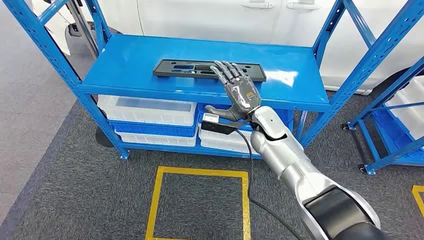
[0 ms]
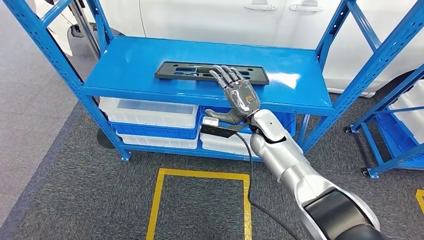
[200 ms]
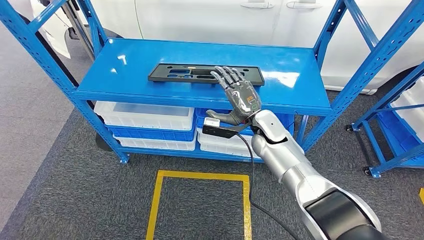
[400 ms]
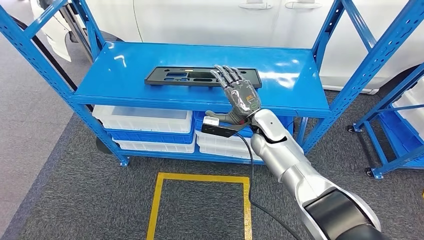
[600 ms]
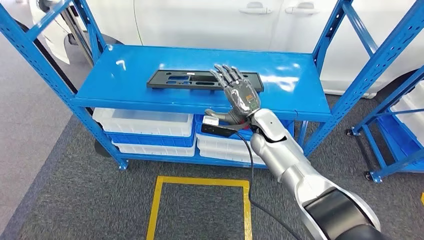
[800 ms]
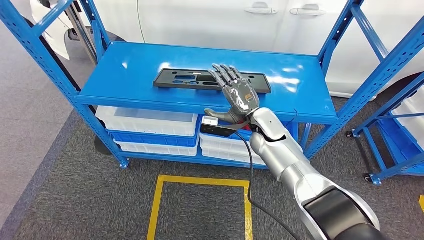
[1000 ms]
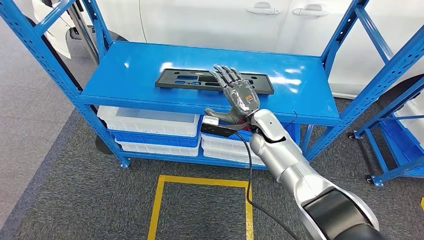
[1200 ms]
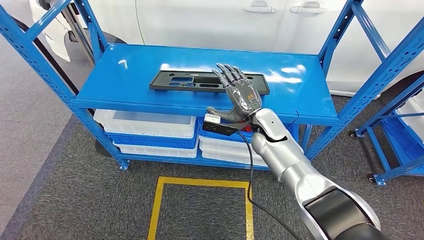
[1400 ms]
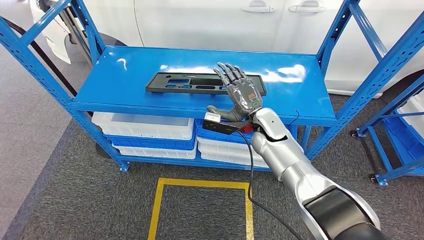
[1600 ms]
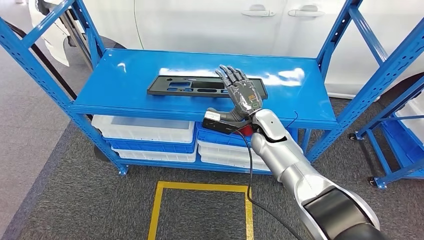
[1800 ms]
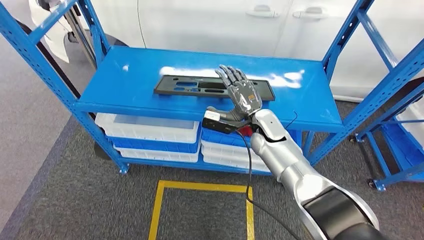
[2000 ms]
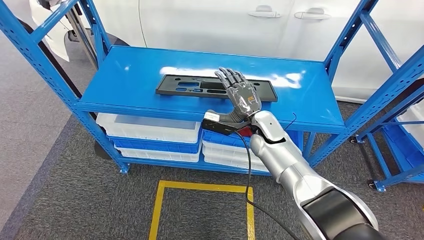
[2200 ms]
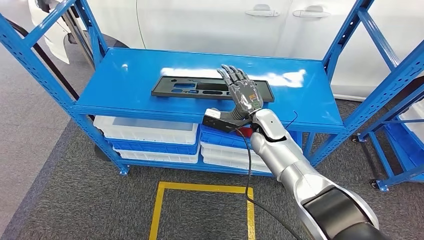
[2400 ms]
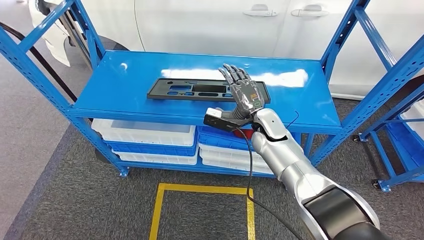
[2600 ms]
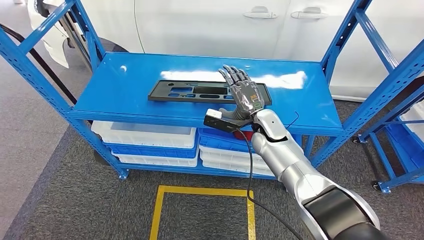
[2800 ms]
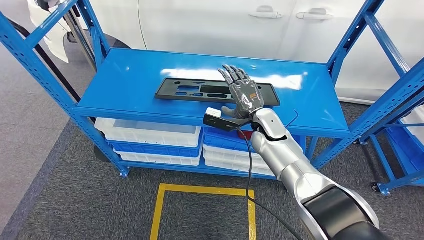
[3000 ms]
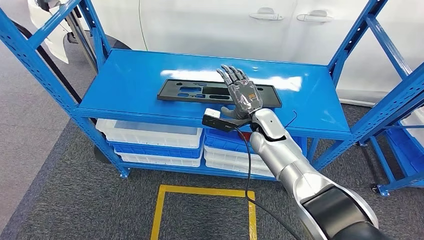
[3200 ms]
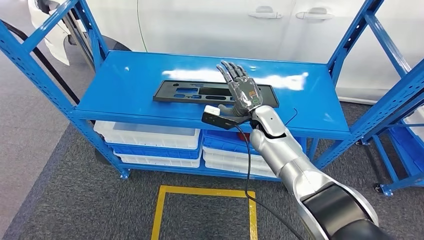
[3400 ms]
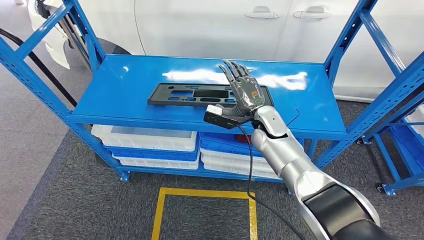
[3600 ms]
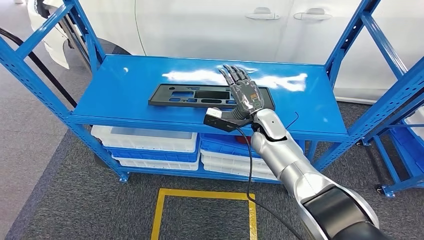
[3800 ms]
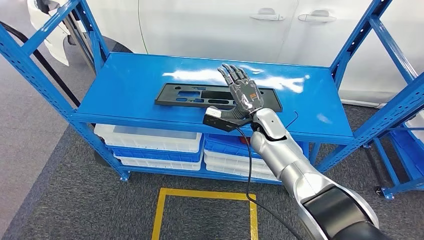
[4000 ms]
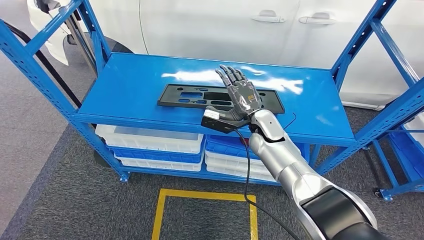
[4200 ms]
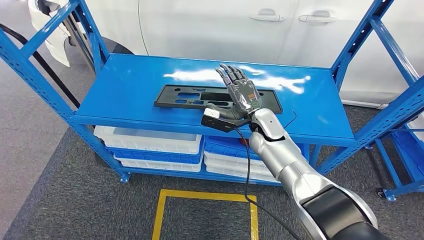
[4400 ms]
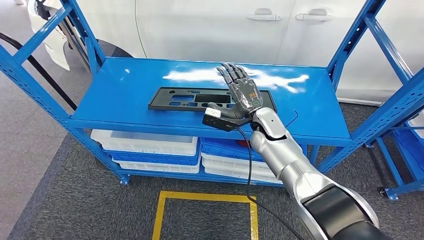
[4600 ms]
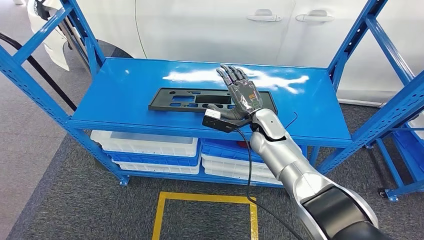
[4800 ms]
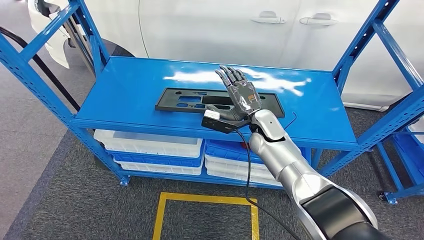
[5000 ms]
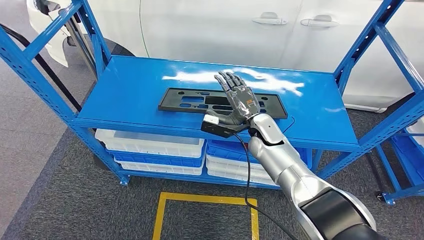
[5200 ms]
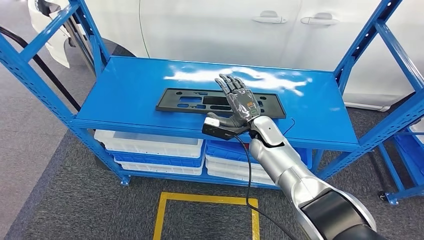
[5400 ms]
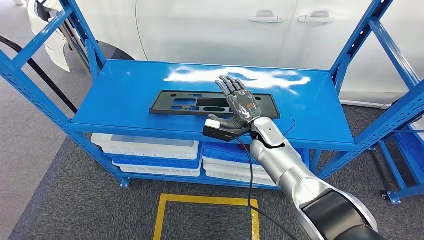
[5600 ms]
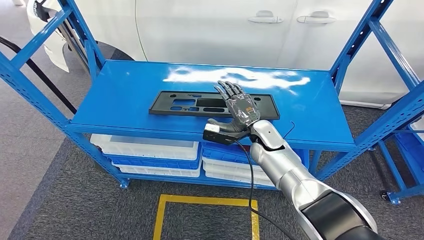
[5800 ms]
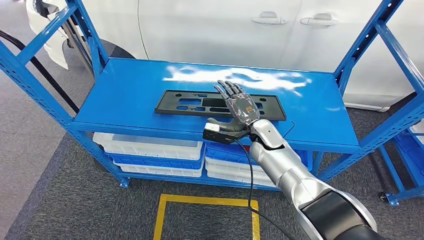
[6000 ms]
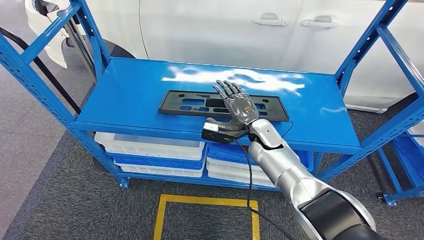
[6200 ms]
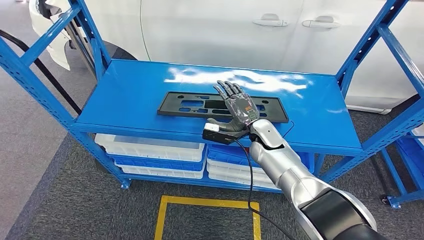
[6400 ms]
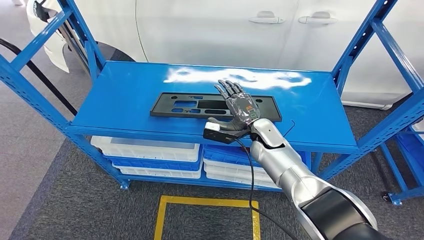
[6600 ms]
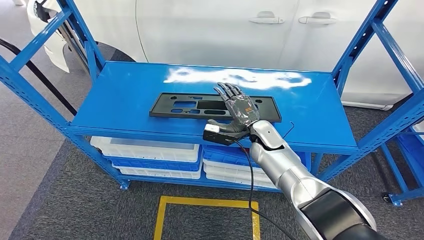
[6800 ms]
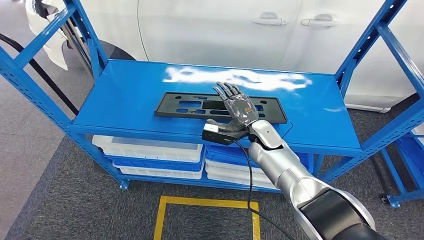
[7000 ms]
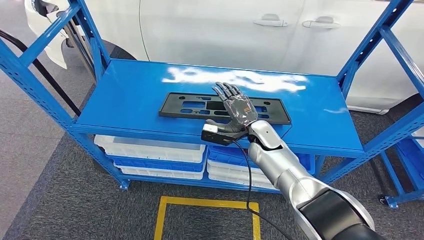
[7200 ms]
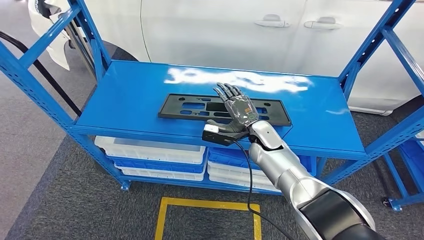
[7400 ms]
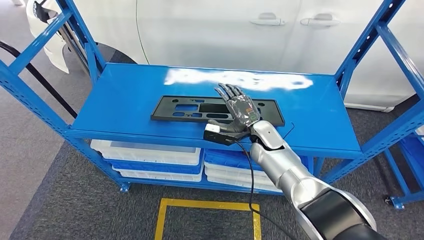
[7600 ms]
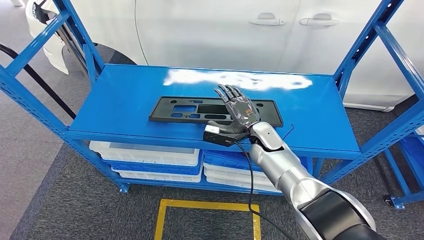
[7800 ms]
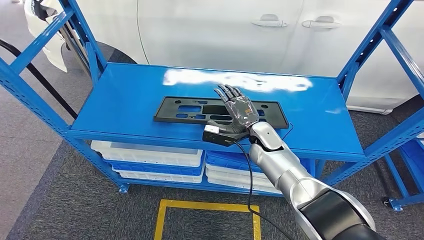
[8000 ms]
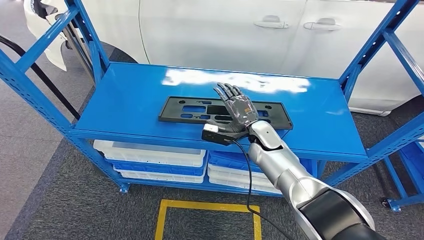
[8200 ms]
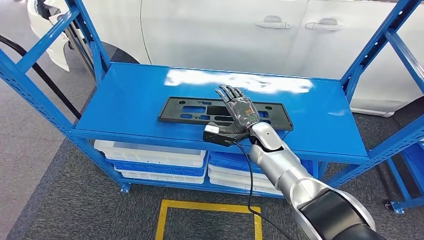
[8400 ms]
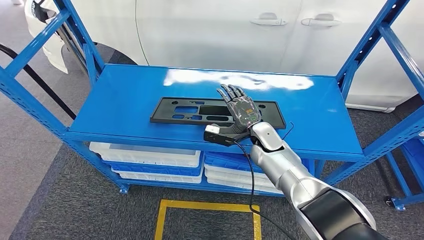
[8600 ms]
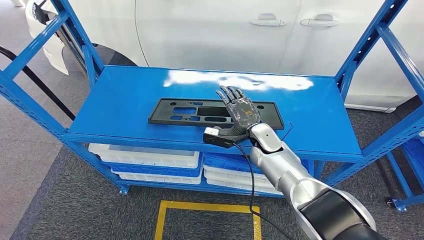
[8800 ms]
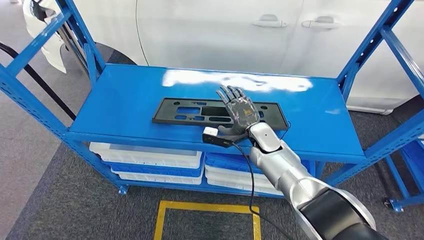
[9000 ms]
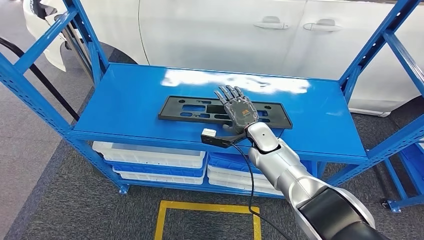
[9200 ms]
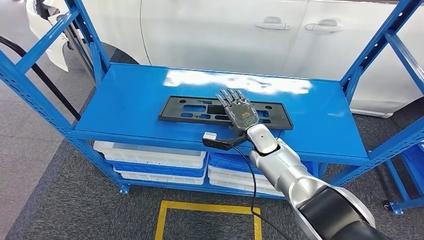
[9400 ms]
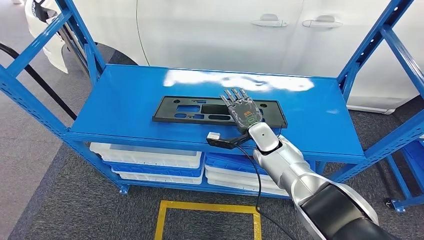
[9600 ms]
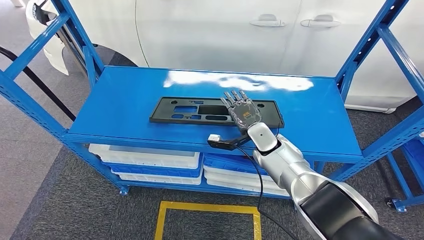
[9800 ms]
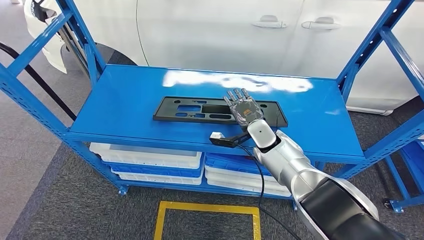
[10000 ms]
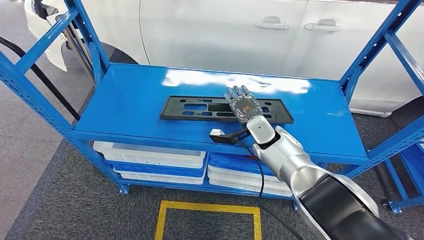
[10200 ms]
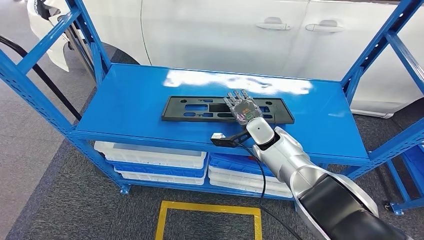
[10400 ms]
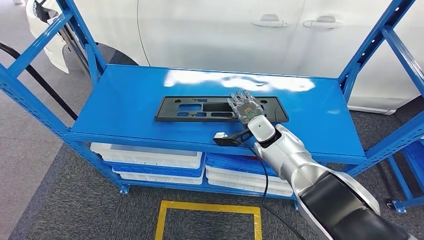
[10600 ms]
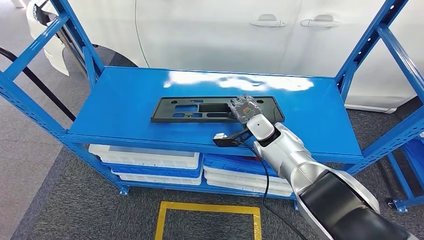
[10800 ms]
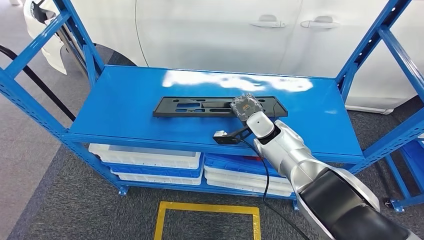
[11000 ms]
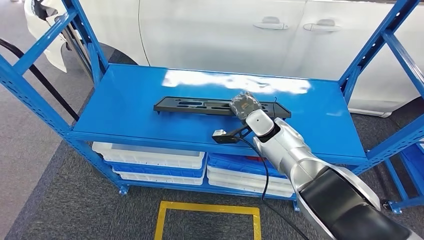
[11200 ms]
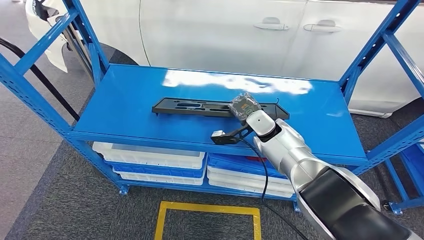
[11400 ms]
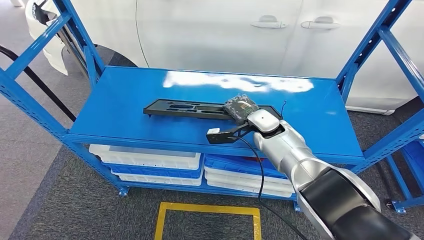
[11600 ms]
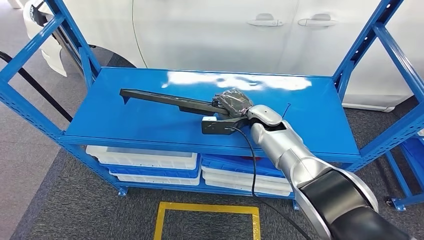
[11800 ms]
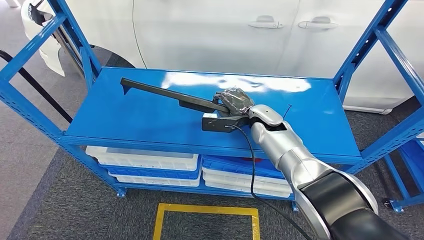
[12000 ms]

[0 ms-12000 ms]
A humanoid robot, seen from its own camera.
7600 ms to 9000 ms: There are only small adjustments of the hands.

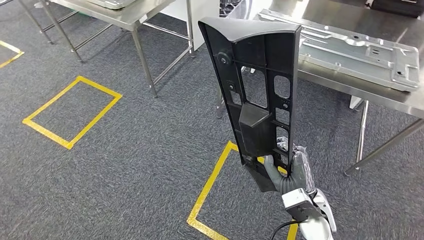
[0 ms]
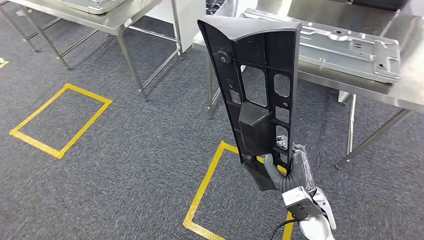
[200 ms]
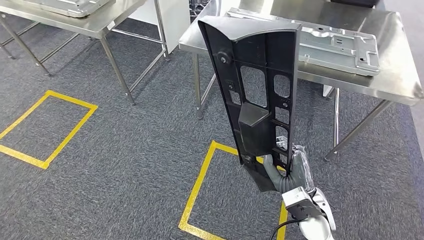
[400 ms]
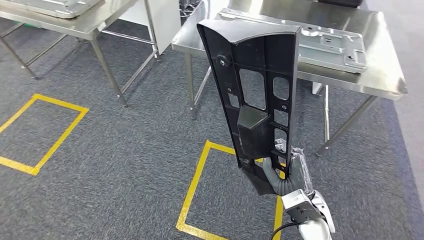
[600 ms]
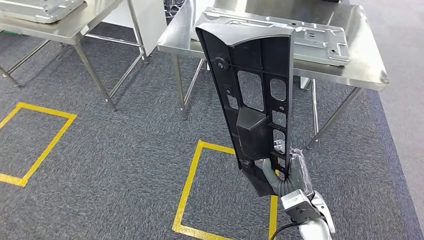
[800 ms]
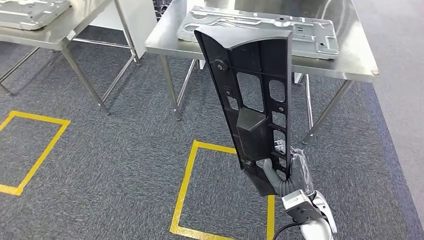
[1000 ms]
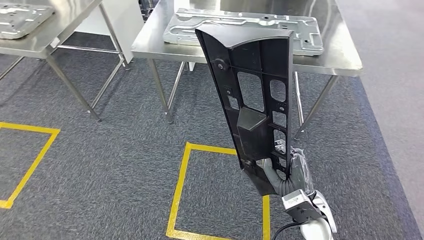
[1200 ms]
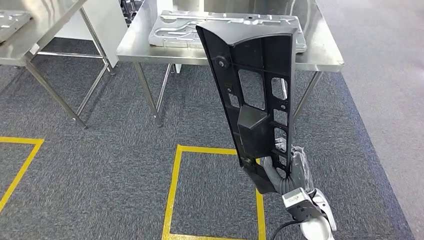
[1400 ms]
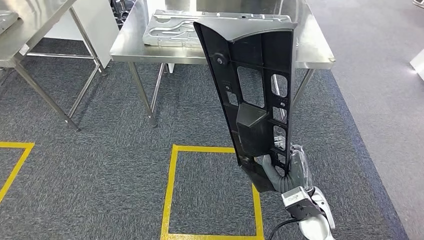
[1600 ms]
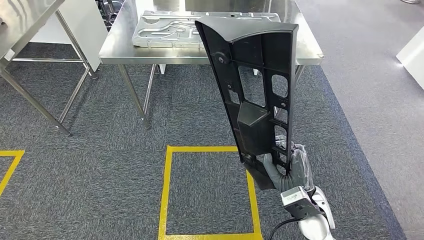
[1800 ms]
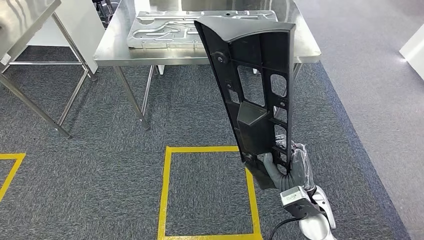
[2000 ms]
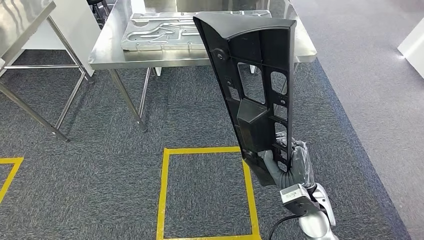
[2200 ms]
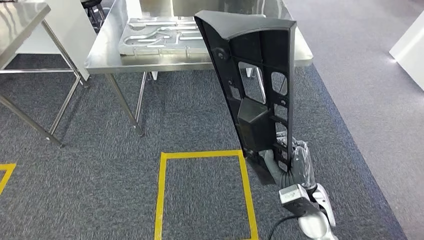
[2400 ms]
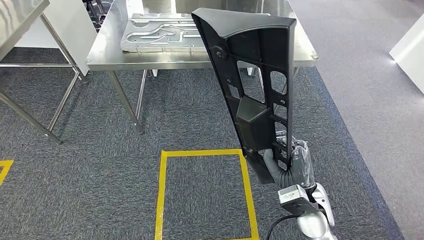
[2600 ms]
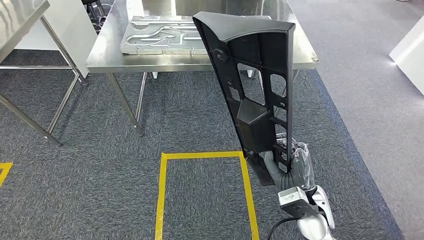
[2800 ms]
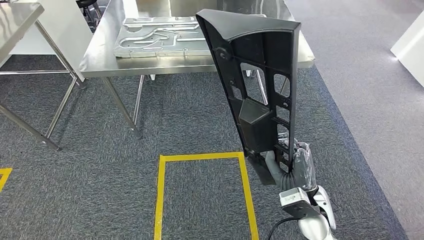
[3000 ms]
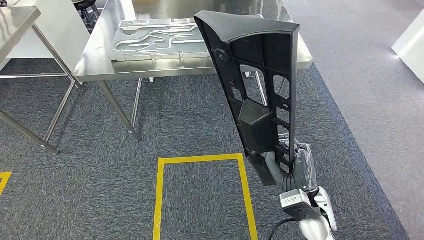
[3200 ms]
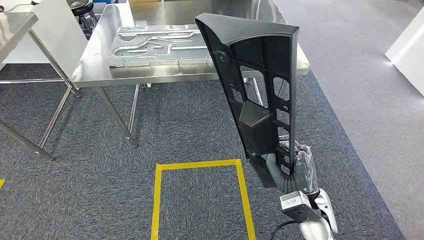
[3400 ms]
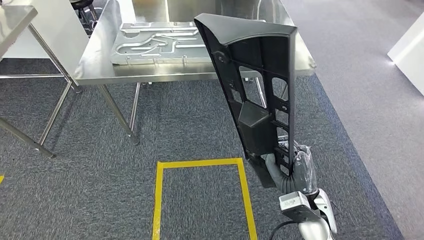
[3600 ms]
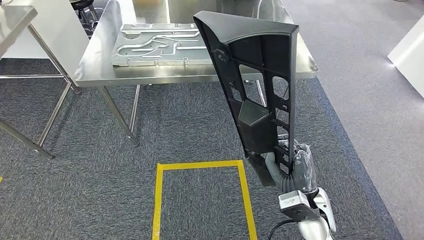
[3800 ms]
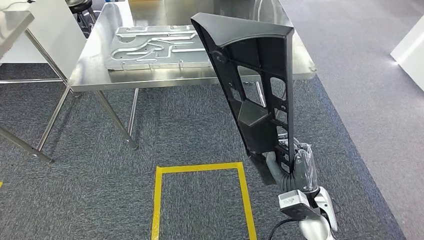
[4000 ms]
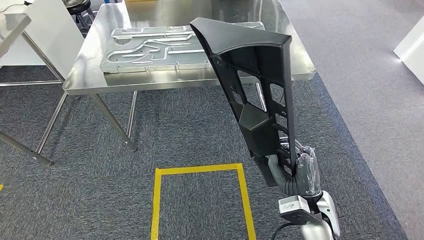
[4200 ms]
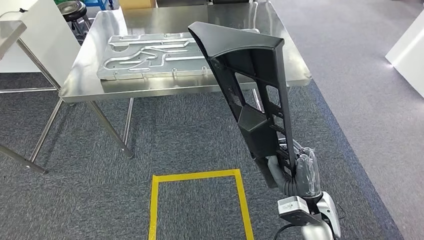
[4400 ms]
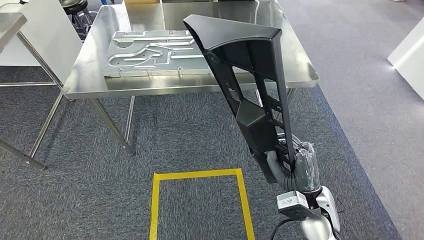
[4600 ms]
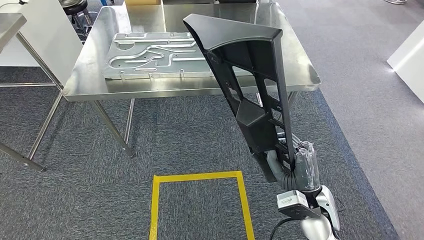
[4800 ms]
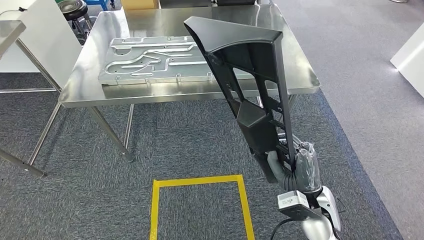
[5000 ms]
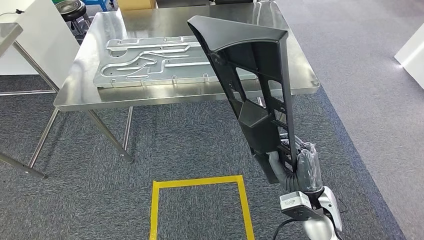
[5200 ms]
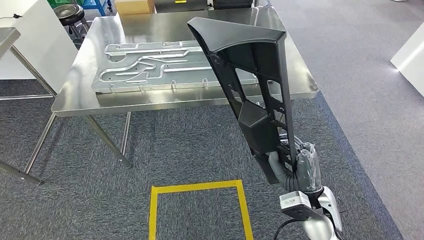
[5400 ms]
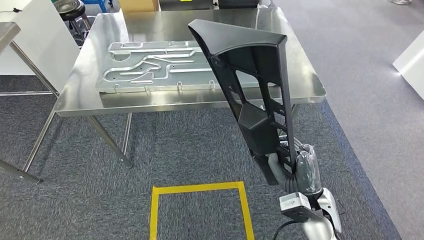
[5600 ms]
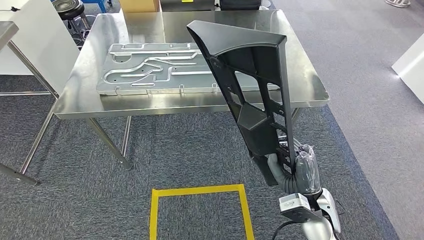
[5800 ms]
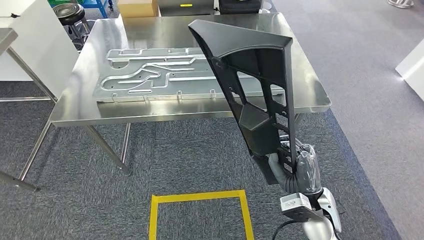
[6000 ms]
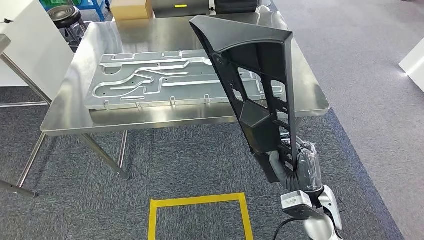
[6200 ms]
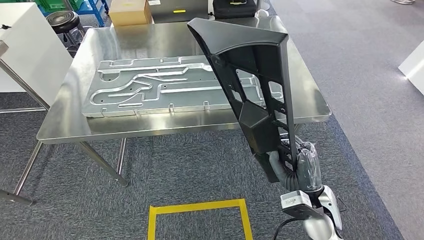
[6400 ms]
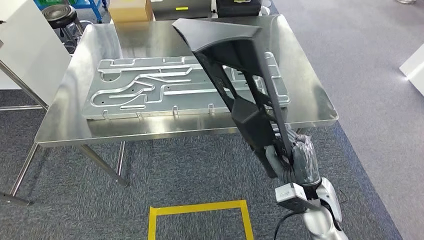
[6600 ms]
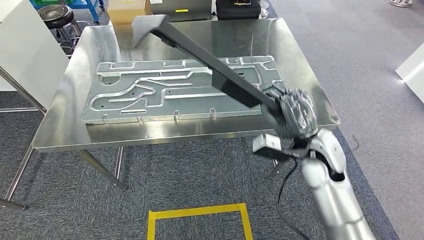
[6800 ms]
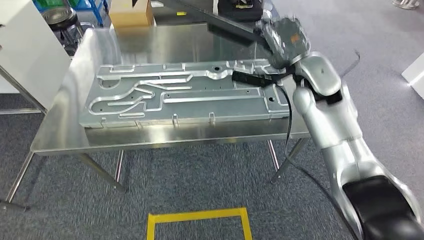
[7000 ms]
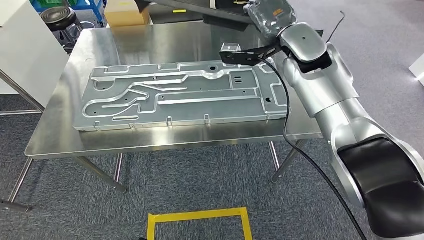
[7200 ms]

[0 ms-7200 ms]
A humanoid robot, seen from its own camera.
Step, 0 ms to 5000 ms: Move the large material to the workbench.
